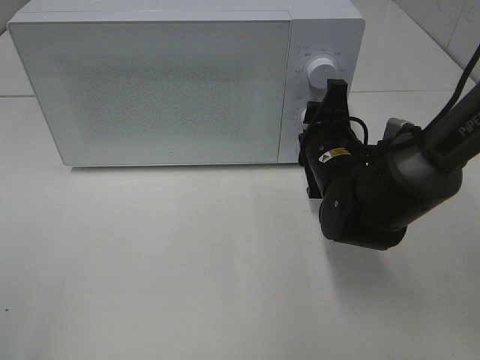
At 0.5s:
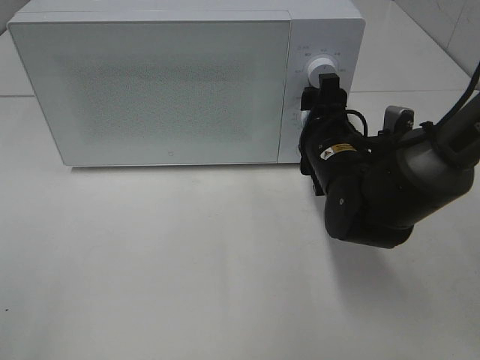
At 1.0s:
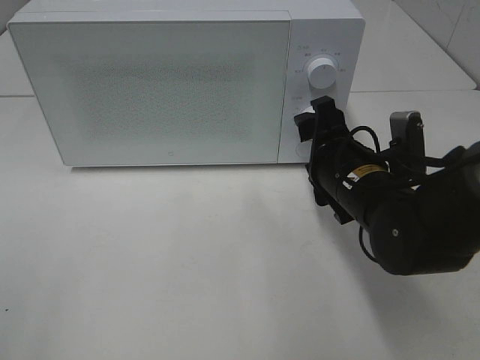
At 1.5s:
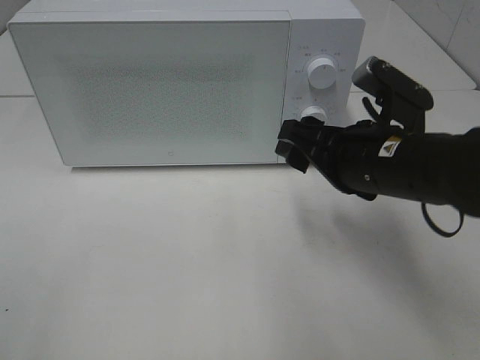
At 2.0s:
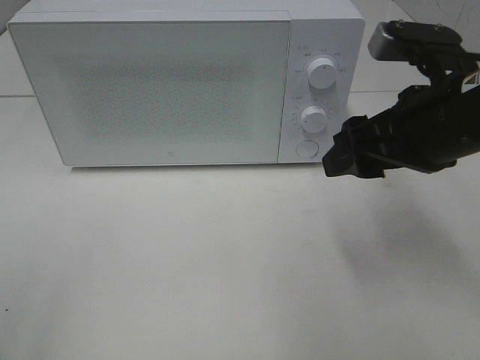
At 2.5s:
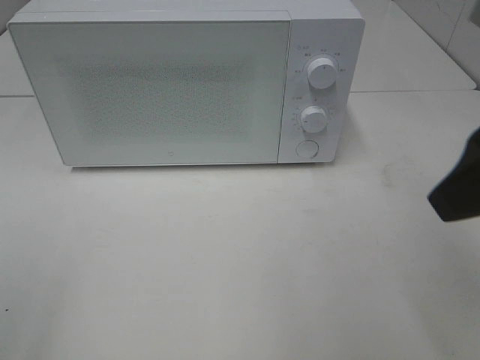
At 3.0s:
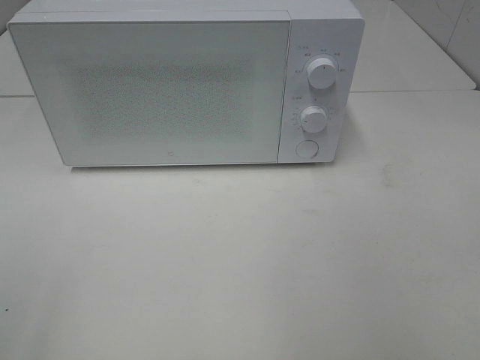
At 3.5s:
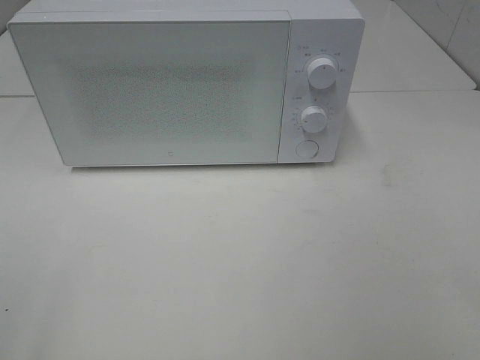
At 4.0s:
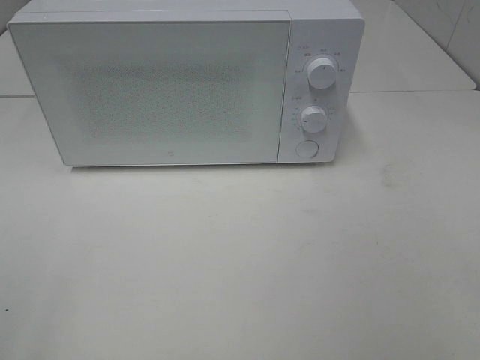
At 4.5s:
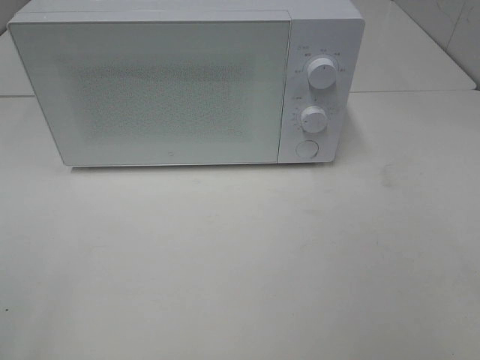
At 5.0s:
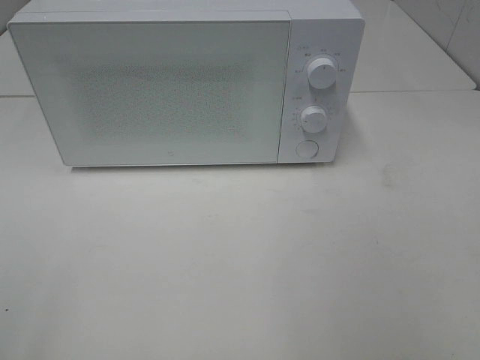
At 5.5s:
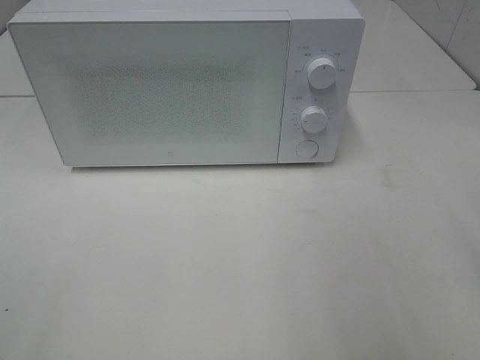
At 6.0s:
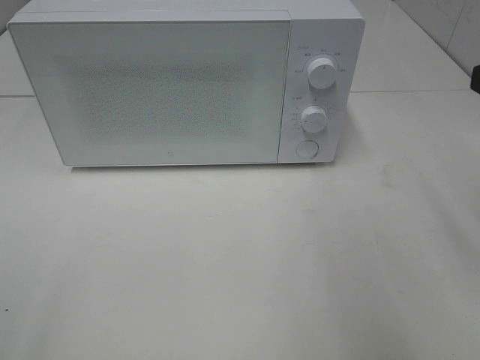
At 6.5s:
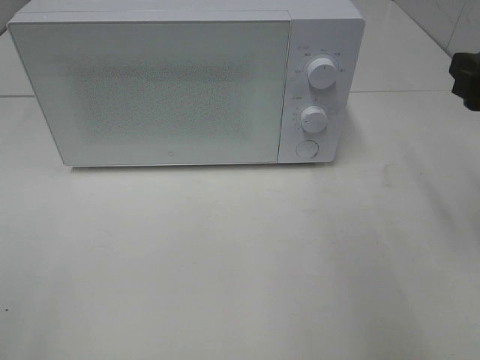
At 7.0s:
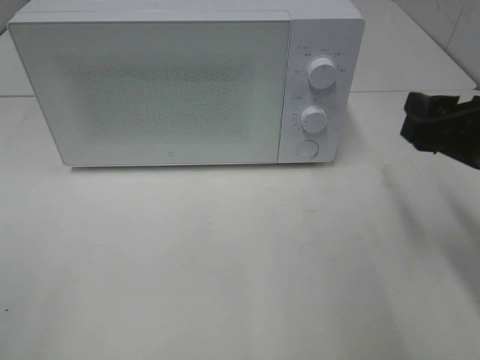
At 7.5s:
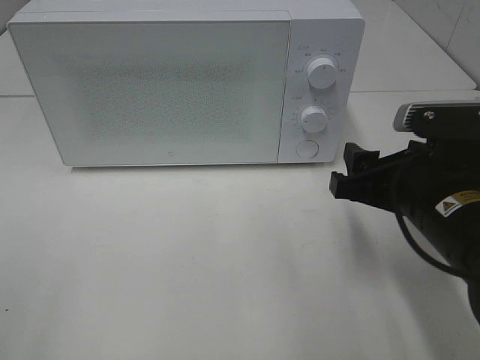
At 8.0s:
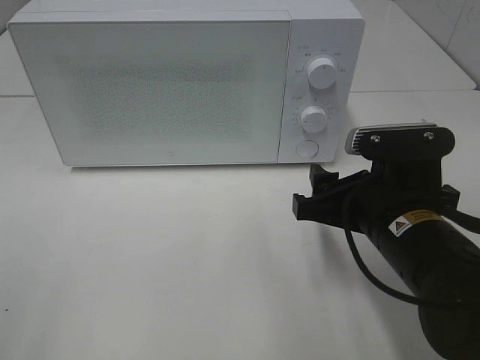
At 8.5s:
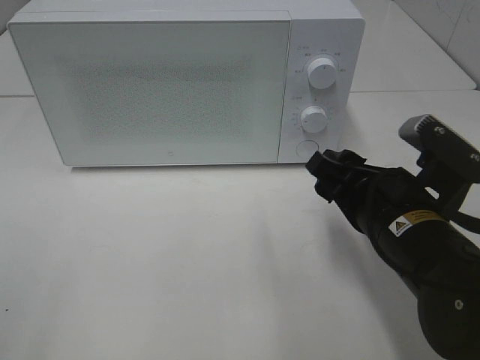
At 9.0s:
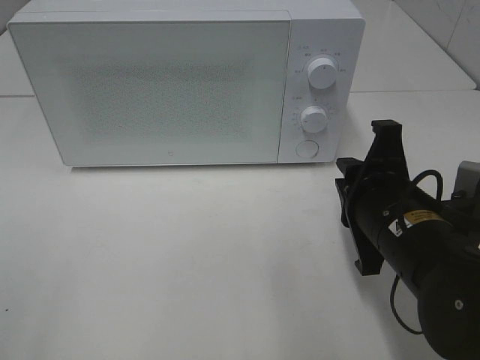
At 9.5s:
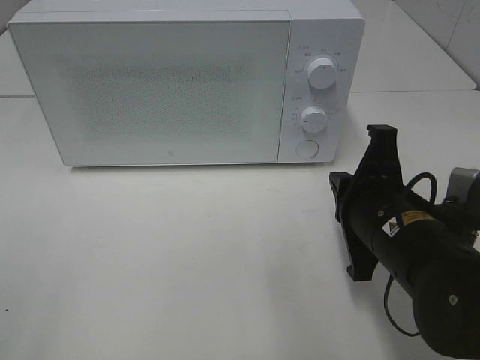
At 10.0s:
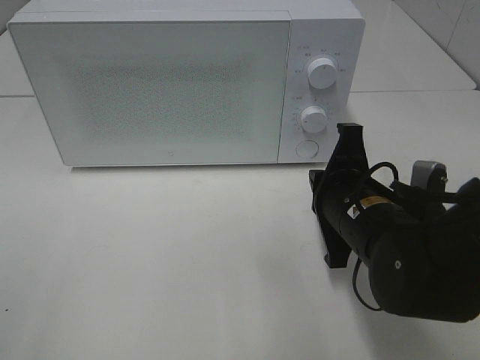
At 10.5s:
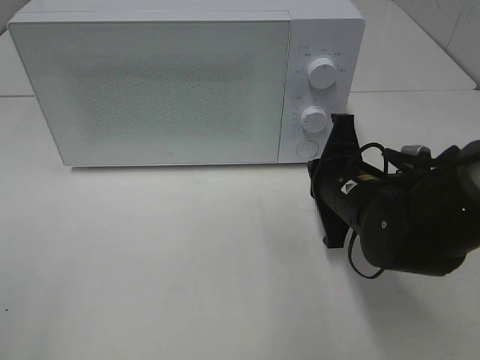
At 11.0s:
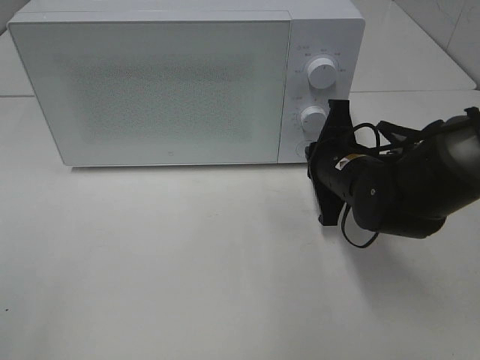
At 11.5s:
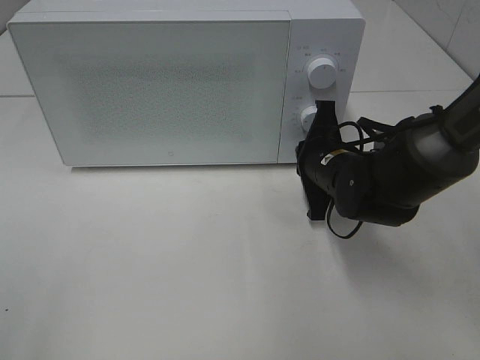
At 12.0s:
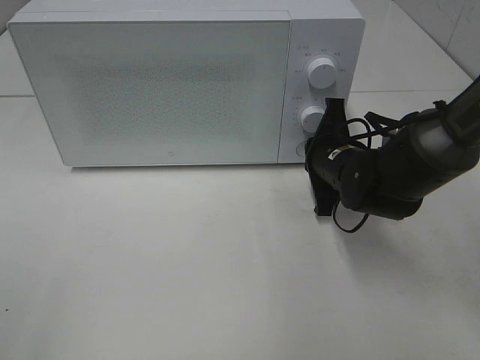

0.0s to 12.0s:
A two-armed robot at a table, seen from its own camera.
Task of the whole recording: Heat the burger.
0.0s to 2.0s: The right gripper shifts roughly 15 cm upward, backward and to the right.
2.0s to 4.0s: The right gripper travels backward and to the right by roughly 25 cm.
6.0s to 8.0s: The right gripper moves downward and to the left, about 20 cm.
8.0s to 10.0s: The right gripper closes.
10.0s to 12.0s: The right gripper shifts approximately 10 cm forward.

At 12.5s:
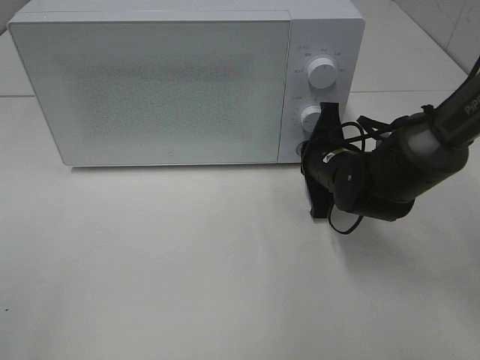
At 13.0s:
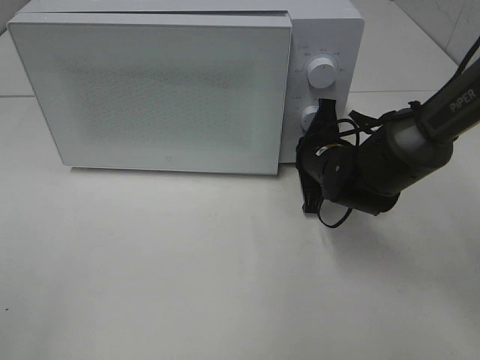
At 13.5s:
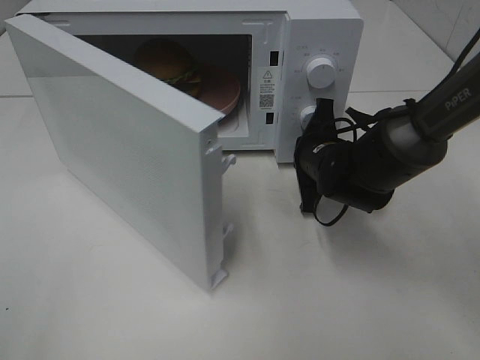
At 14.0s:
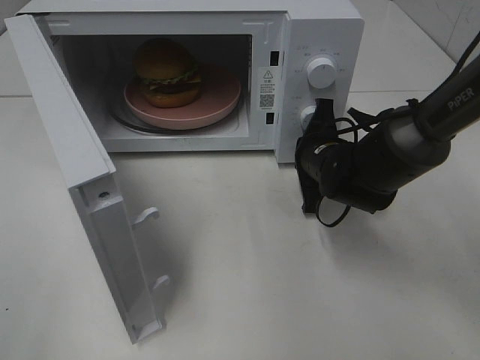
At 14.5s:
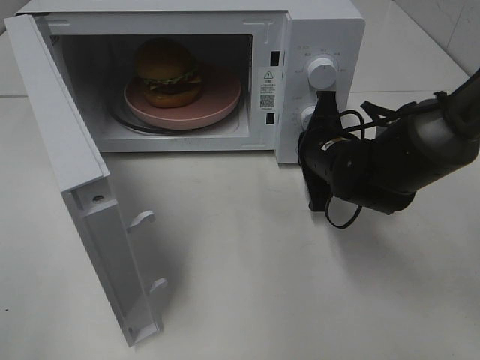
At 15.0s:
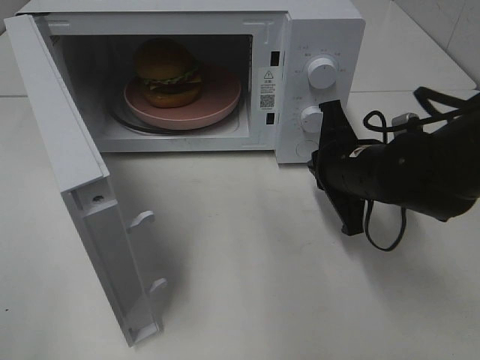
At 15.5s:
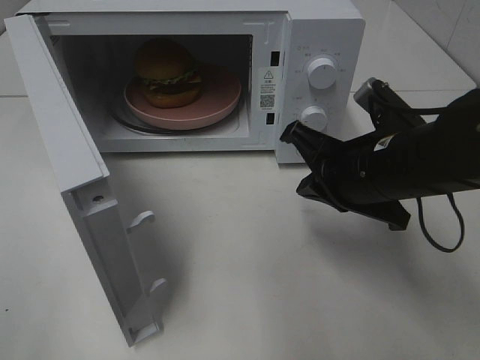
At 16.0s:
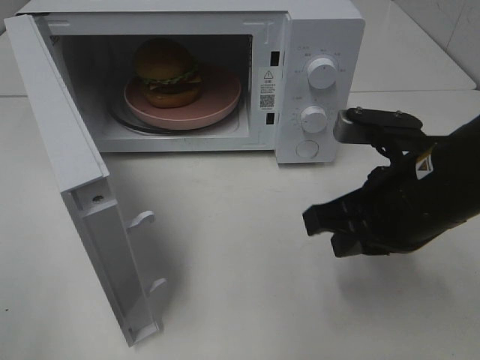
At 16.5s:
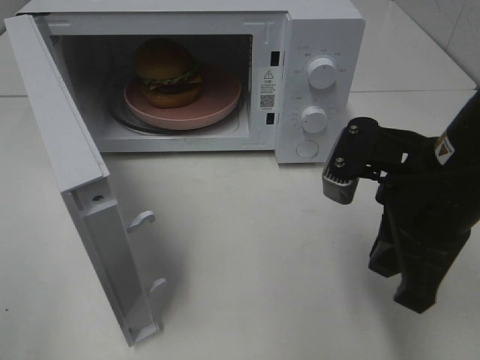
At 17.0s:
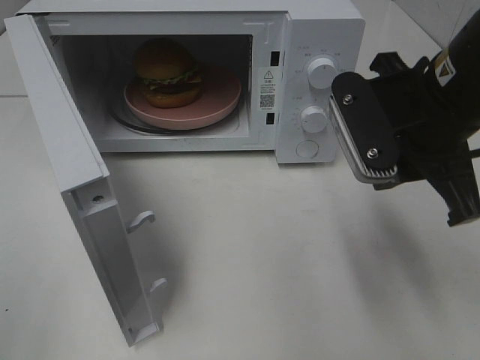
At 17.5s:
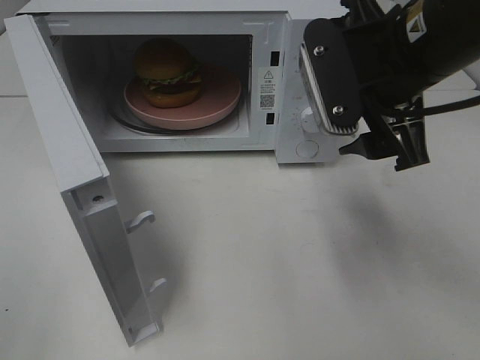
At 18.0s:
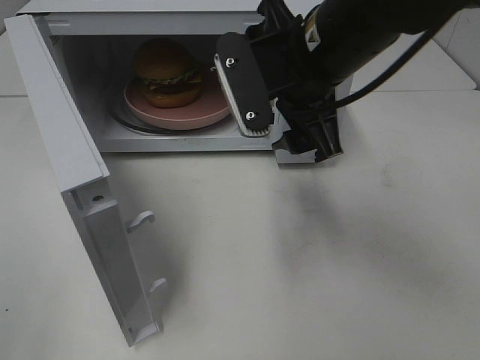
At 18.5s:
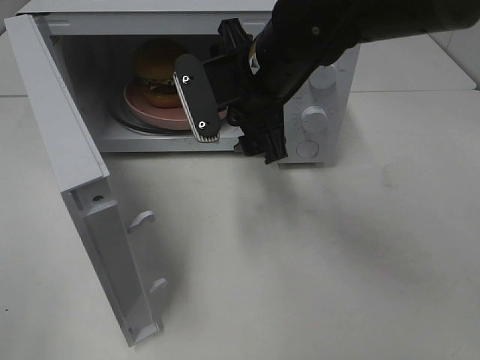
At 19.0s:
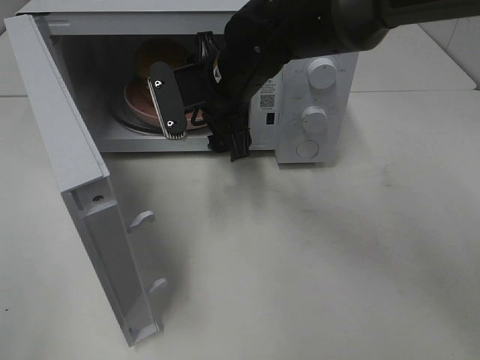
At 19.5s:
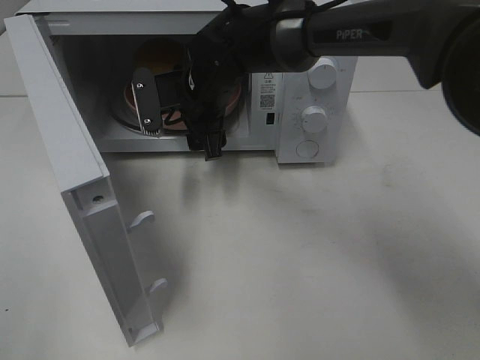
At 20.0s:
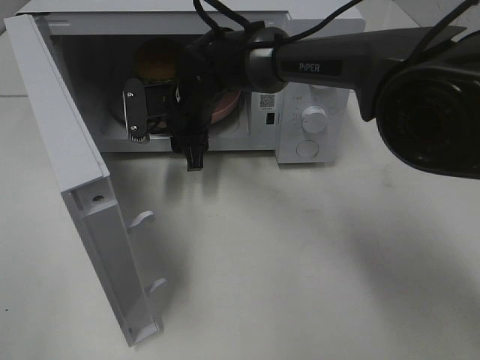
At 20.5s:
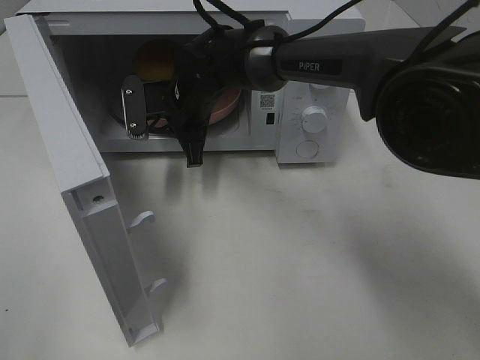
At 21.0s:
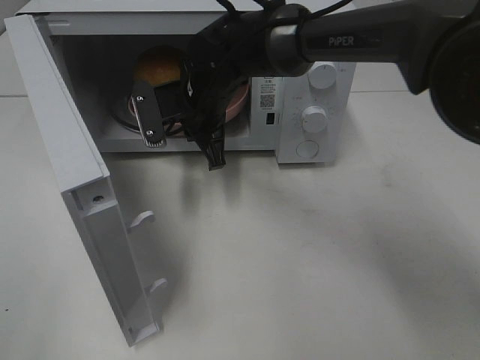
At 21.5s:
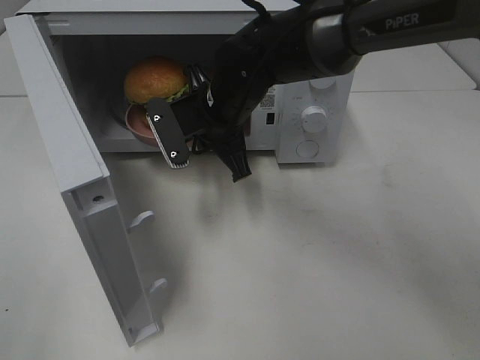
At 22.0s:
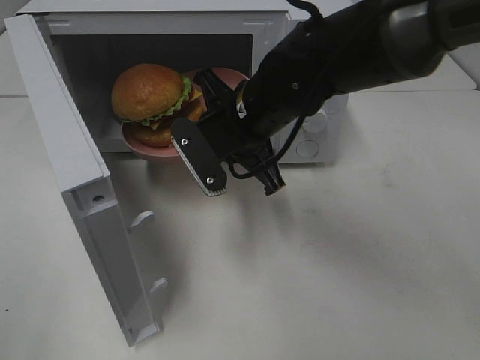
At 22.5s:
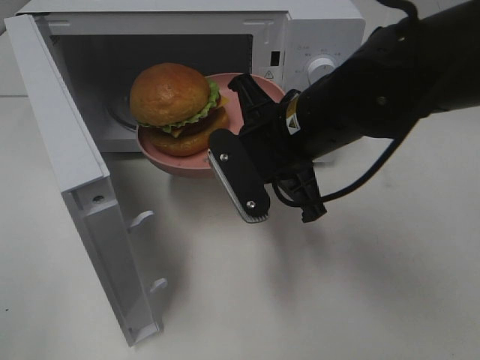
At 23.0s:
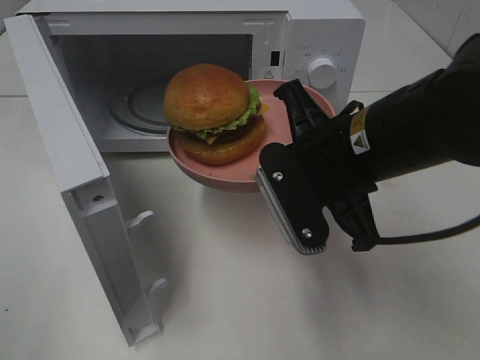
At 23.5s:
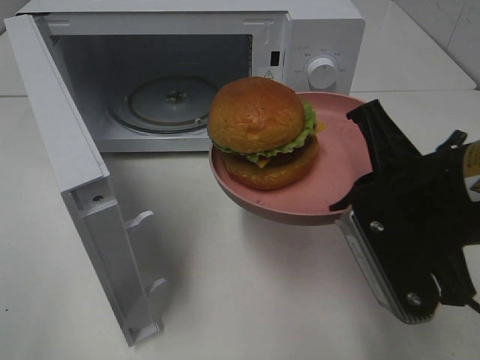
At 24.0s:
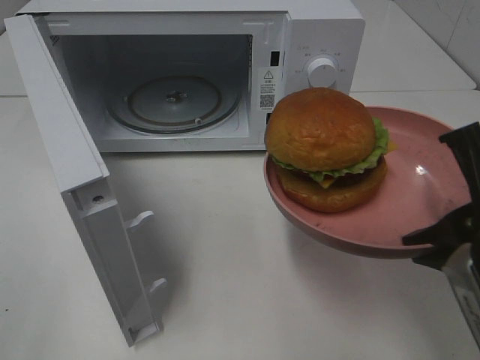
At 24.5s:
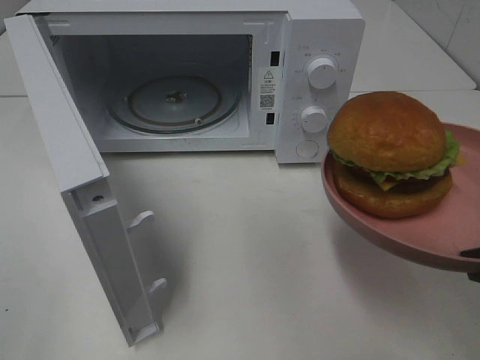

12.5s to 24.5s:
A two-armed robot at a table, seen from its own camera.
Task of the whole recording: Heat the burger.
Step, 12.5s to 14.5s: Right hand: press the switch.
Step, 15.0s to 20.5s: Right hand: grab the plate with the hamburger.
14.5s to 16.5s: The right gripper moves backward and upward, about 15 cm.
16.5s to 18.5s: The right gripper shifts about 20 cm forward and to the left, and opens.
18.5s to 20.5s: The right gripper moves forward, downward and to the left, about 15 cm, and closes up.
20.5s to 22.5s: The right gripper moves backward and to the right, roughly 20 cm.
22.5s to 24.5s: The right gripper heads backward and to the right, covering about 25 cm.

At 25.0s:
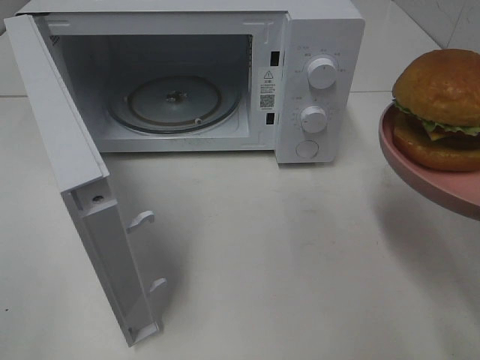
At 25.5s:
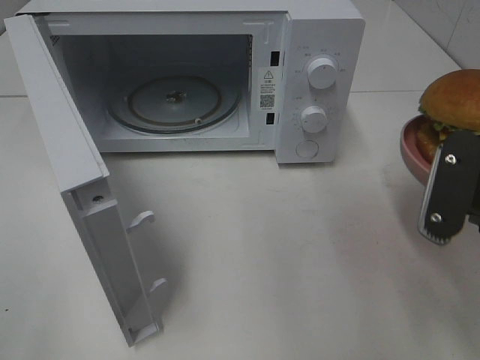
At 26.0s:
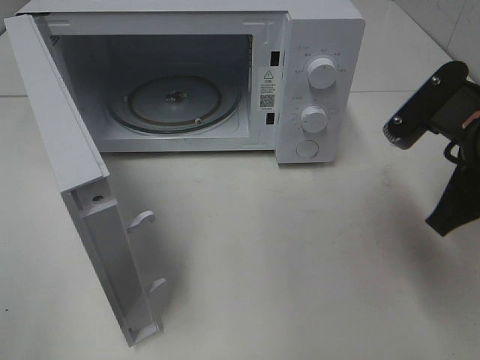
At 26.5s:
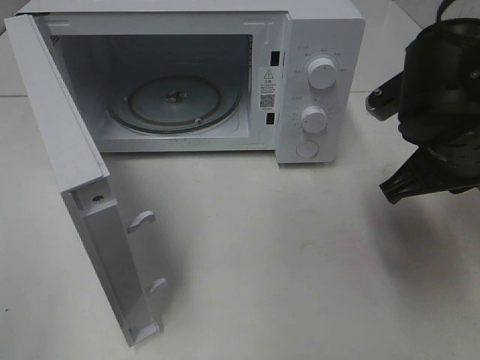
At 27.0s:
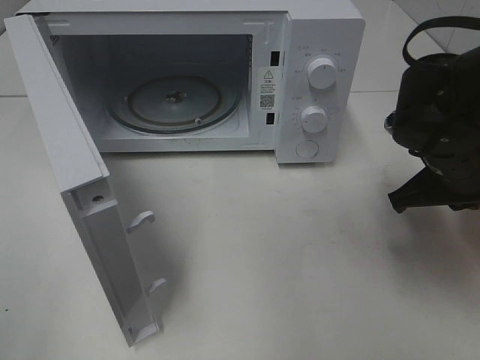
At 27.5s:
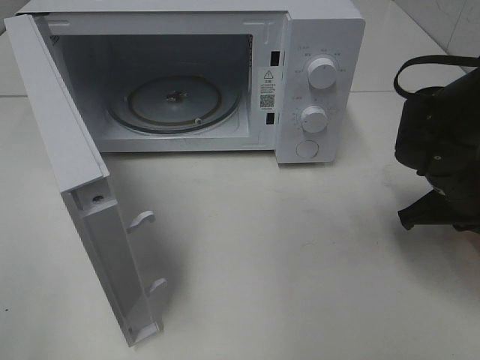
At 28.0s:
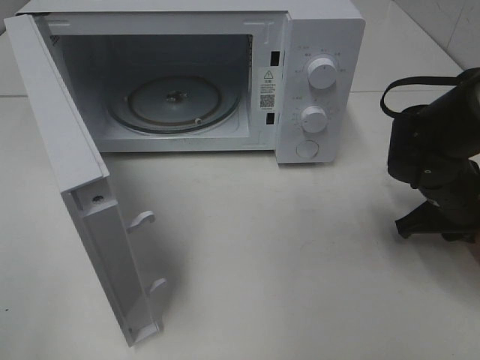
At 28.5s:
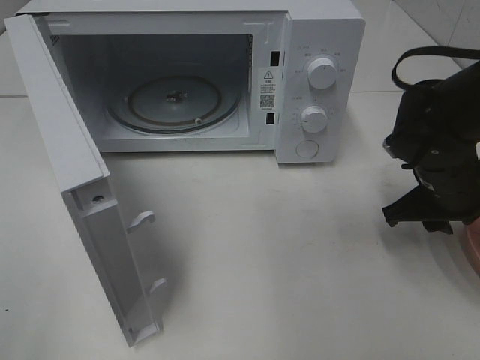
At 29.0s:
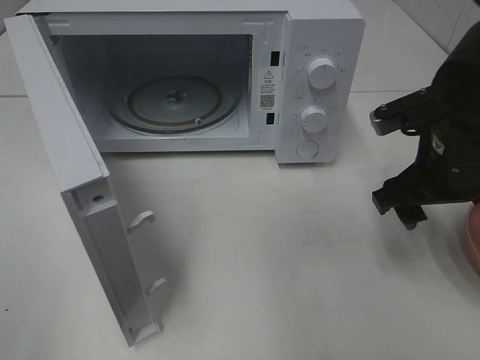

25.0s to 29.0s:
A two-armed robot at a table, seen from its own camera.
Task of the whole recording: Heat the burger.
Step, 25.0s to 28.0s: Right hand: place the plate on the table.
25.0s to 27.0s: The right gripper goes about 20 cm forward and downward.
27.0s to 29.0s: The right gripper reaches approximately 5 cm downward, then returns, and opens.
